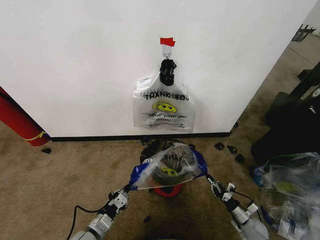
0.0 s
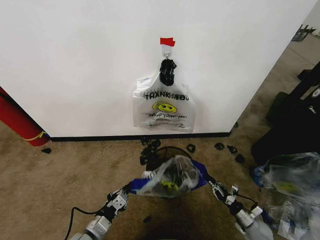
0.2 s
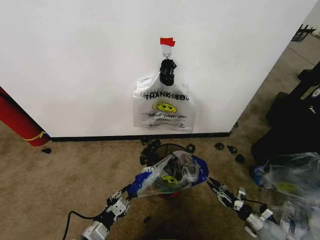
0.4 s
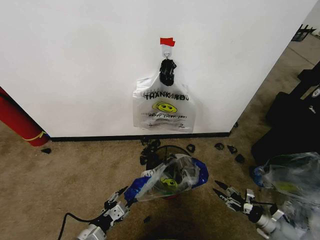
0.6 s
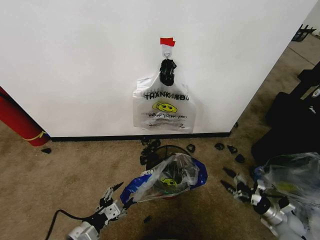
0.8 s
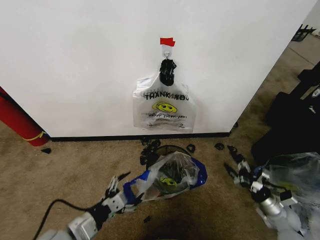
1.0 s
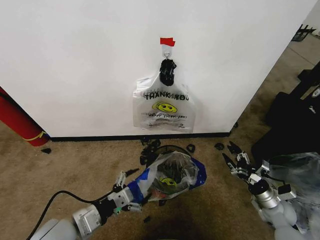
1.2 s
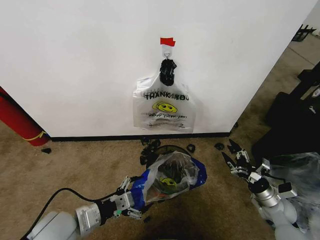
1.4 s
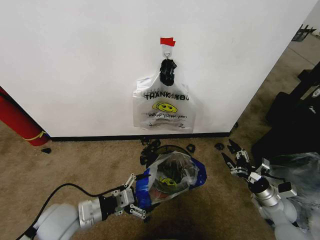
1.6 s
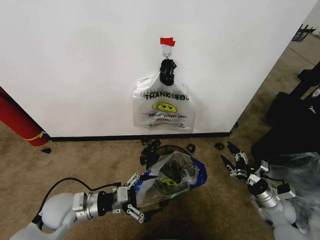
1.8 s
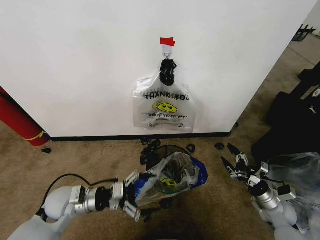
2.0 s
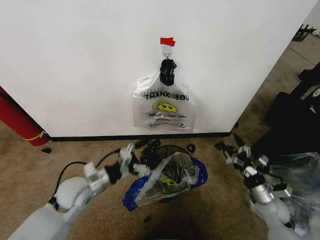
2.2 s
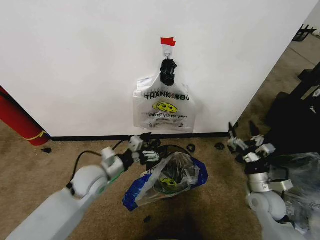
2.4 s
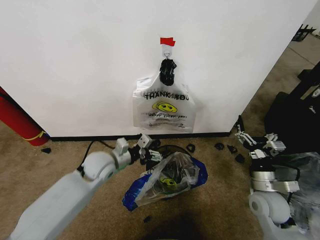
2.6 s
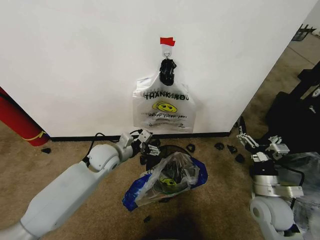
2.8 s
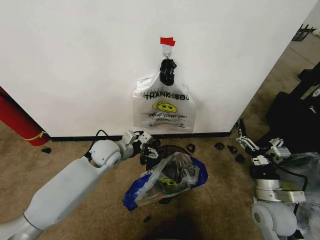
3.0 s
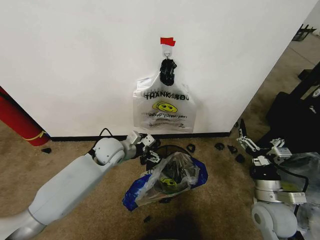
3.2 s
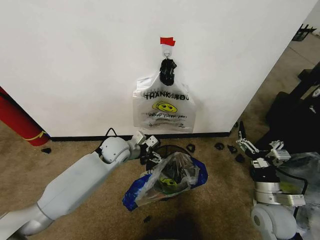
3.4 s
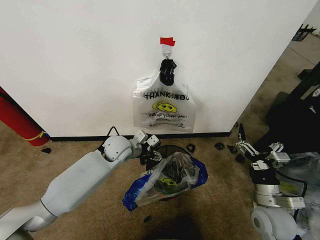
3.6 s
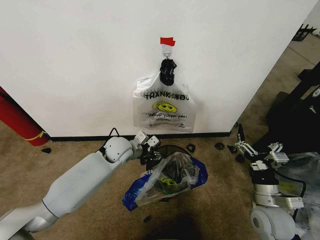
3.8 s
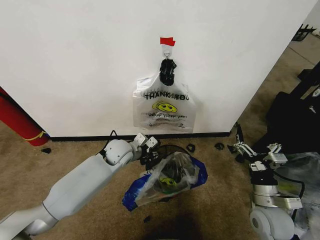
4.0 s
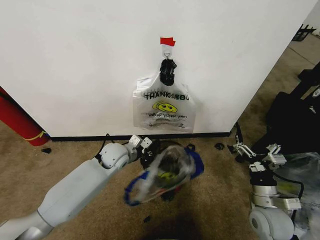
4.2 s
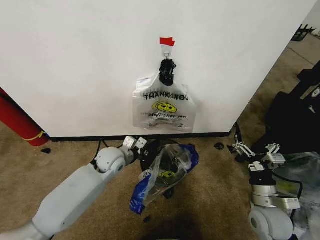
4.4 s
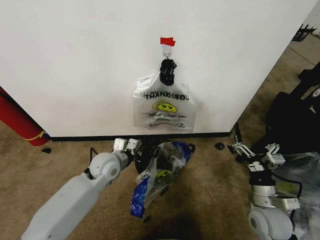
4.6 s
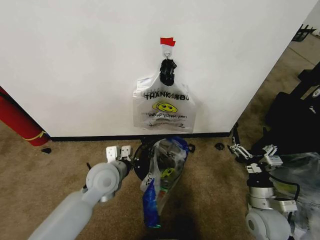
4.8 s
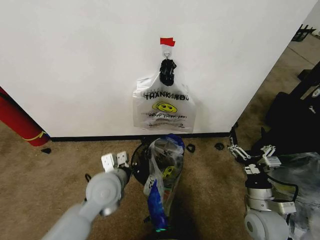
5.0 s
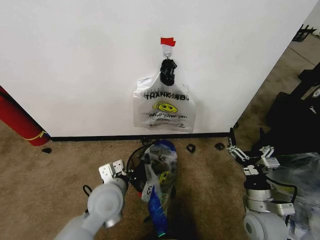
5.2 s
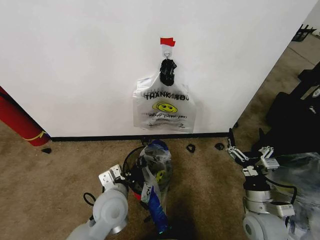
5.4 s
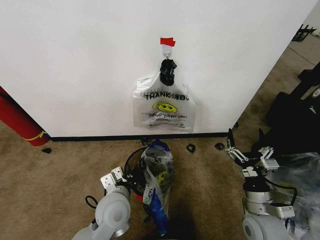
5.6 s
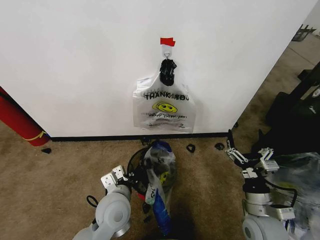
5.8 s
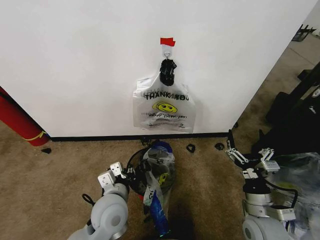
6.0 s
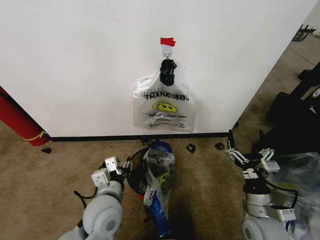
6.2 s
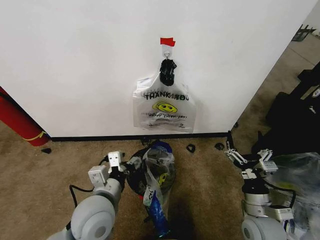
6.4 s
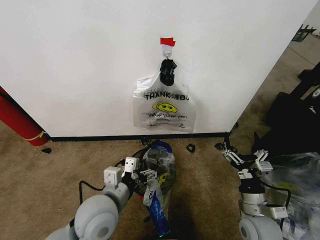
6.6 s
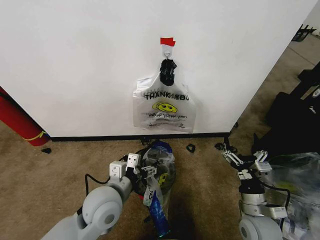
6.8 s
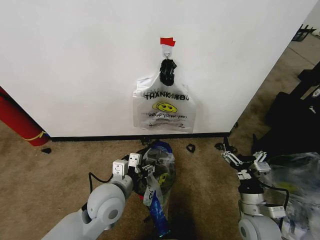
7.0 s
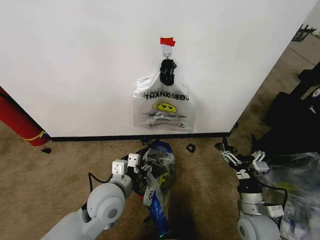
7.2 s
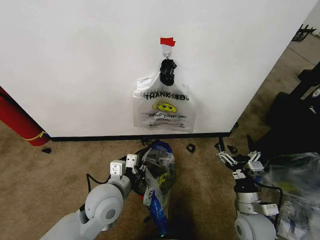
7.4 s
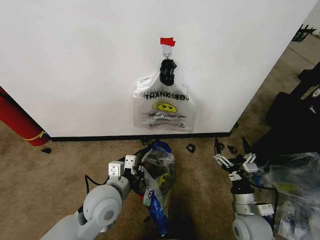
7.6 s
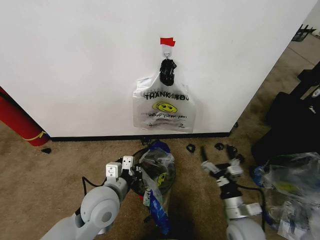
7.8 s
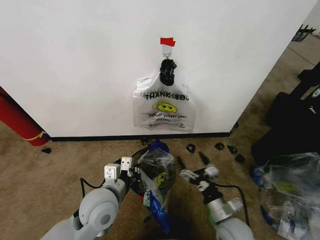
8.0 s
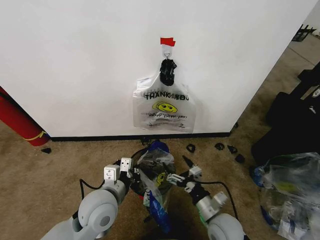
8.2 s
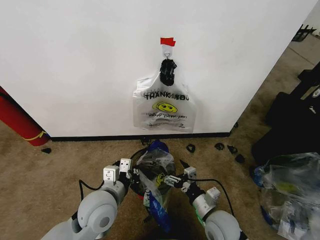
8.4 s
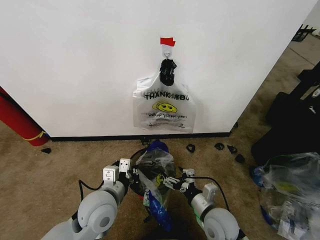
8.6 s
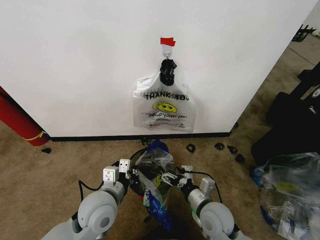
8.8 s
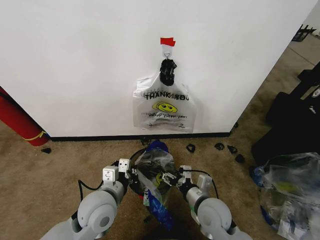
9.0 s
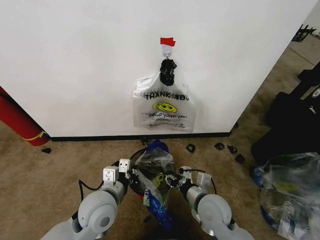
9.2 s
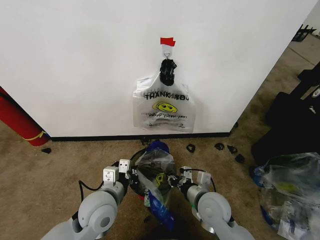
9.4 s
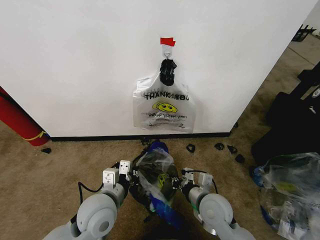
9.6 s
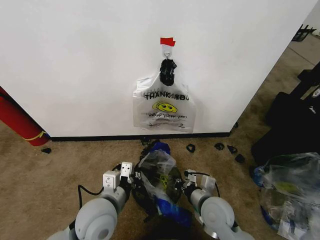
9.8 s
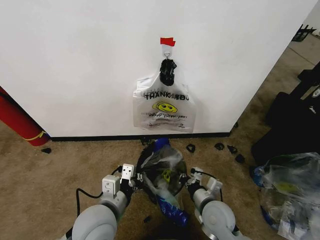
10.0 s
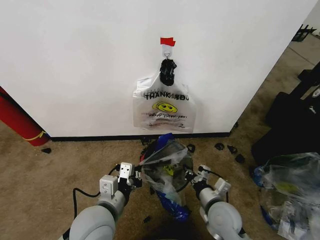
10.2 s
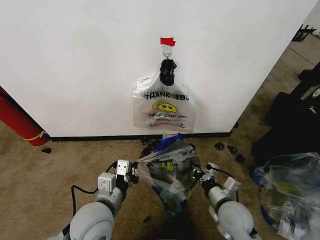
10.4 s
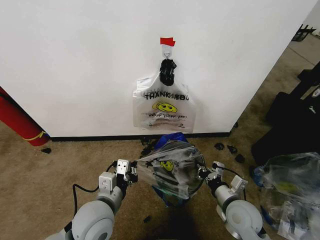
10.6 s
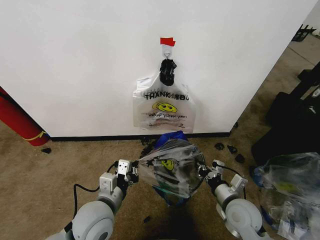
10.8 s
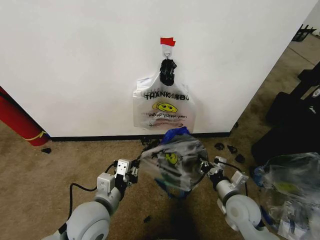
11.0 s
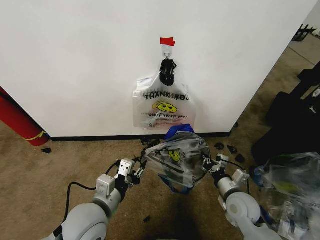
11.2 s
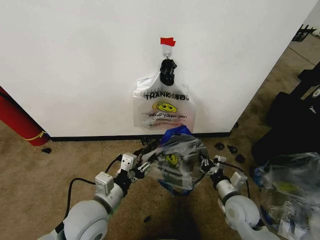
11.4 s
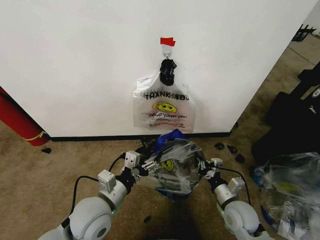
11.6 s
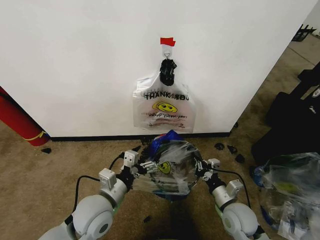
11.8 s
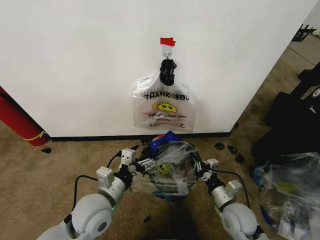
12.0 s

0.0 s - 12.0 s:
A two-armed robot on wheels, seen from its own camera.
Task of the whole recording: Pick up the garbage bag from the wall and place it over the trash bin.
0.0 s - 1.6 s: Both grippers move upward, approximately 15 cm. The left gripper opens; the right gripper opens up.
1.6 s - 3.0 s: The right gripper moves to the left, upward and backward, about 15 cm, while the left gripper goes some 20 cm forward and to the right.
3.0 s - 4.4 s: The left gripper closes its fingers.
4.4 s - 6.0 s: The left gripper travels backward by approximately 15 cm.
6.0 s - 7.6 s: The left gripper opens, then closes once more.
7.6 s - 9.0 s: The right gripper shifts approximately 10 cm to the left.
9.0 s - 10.4 s: The right gripper moves to the right, about 5 cm, and closes.
10.4 s - 12.0 s: The left gripper opens.

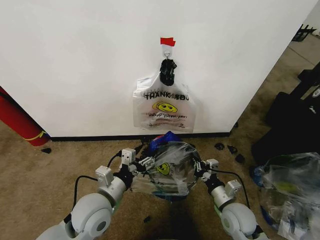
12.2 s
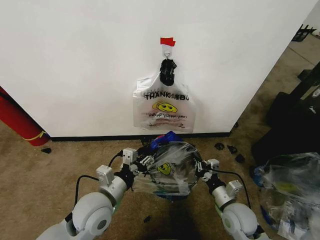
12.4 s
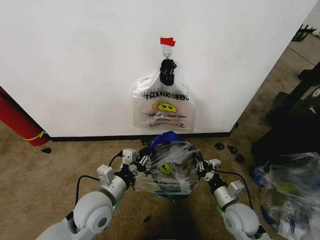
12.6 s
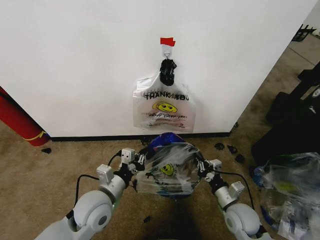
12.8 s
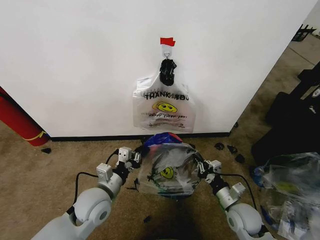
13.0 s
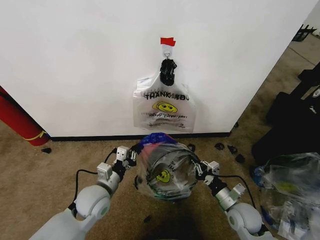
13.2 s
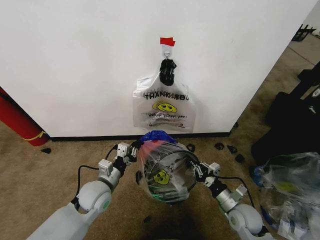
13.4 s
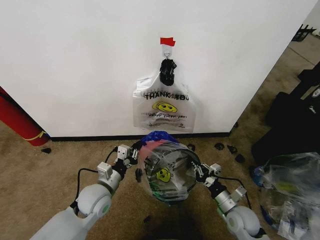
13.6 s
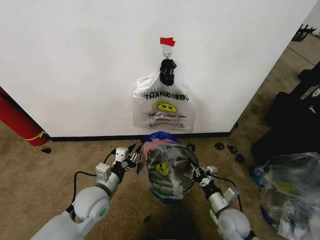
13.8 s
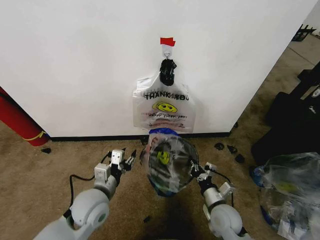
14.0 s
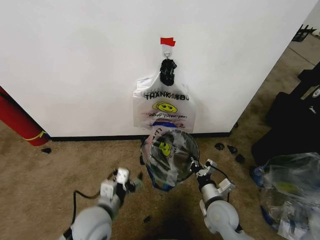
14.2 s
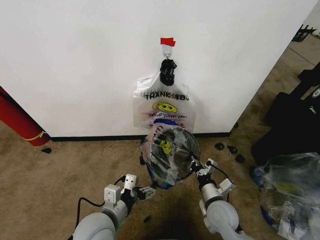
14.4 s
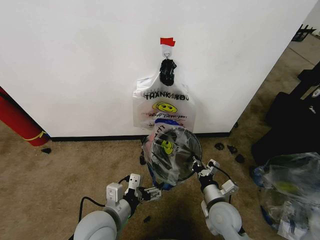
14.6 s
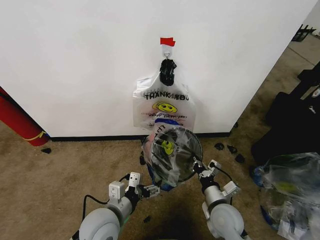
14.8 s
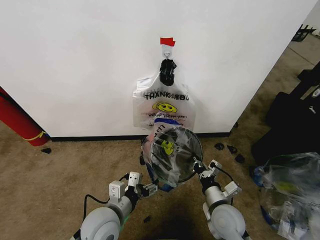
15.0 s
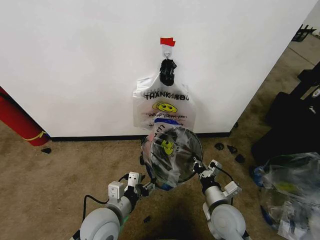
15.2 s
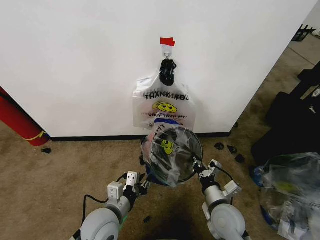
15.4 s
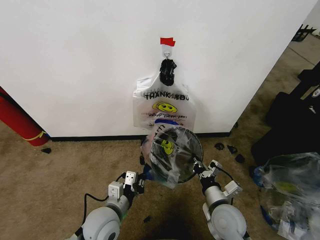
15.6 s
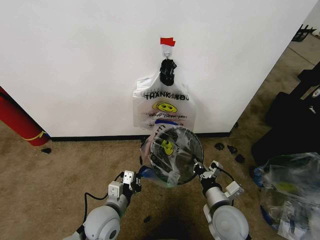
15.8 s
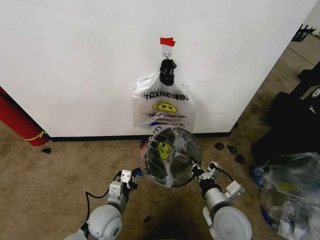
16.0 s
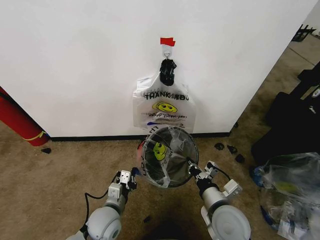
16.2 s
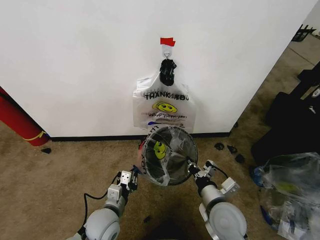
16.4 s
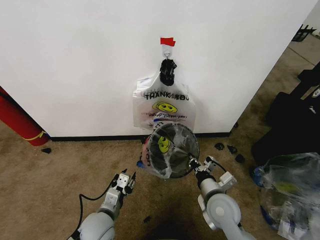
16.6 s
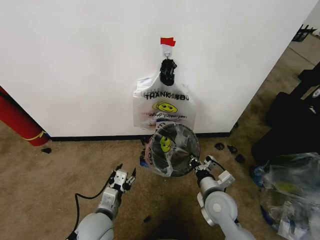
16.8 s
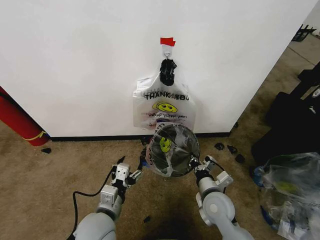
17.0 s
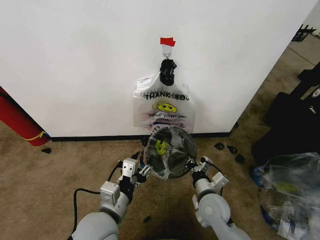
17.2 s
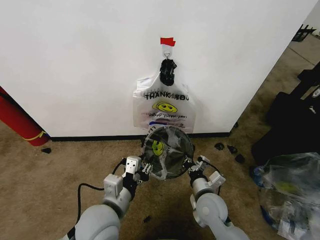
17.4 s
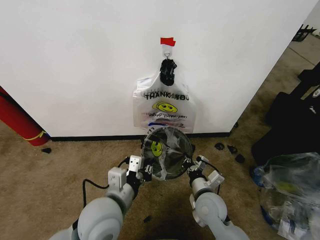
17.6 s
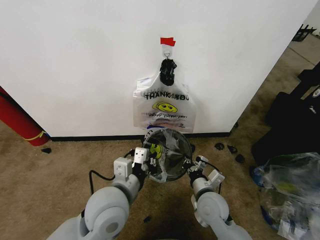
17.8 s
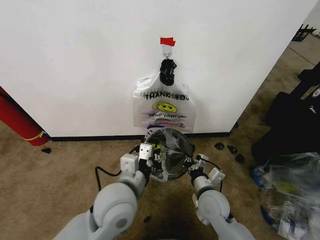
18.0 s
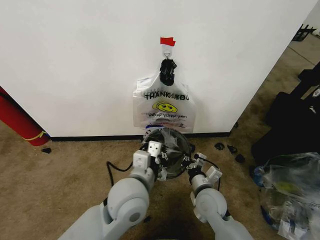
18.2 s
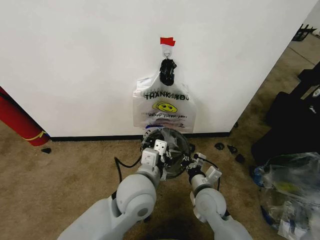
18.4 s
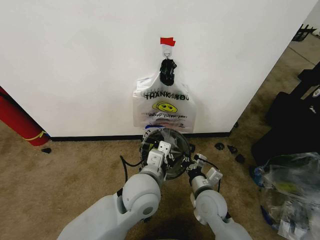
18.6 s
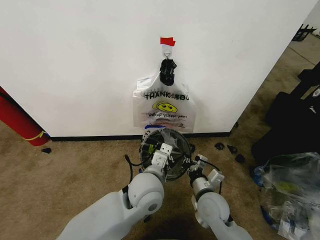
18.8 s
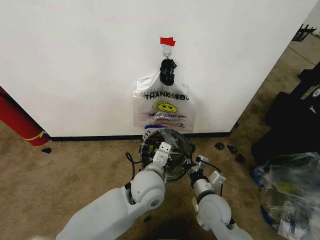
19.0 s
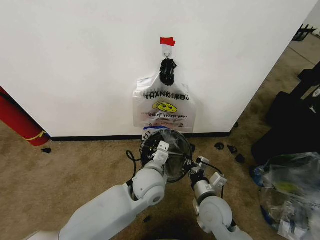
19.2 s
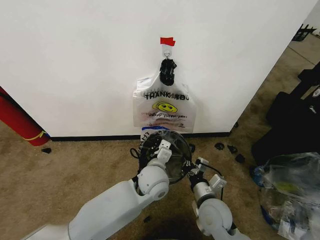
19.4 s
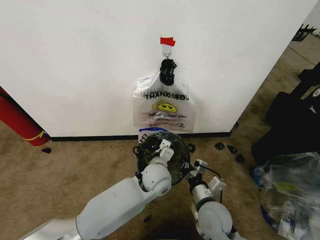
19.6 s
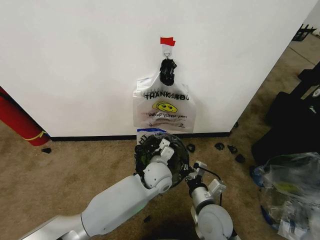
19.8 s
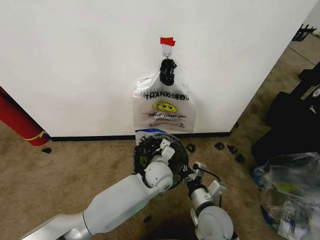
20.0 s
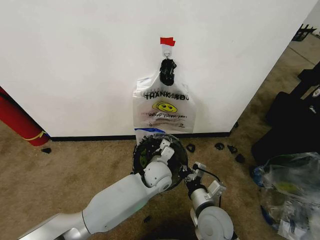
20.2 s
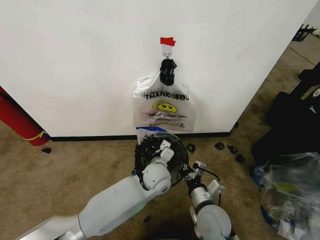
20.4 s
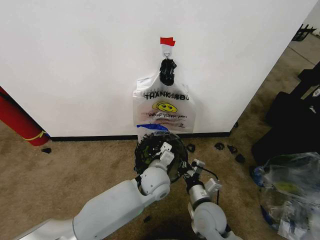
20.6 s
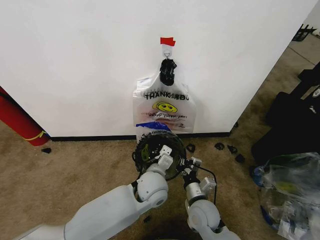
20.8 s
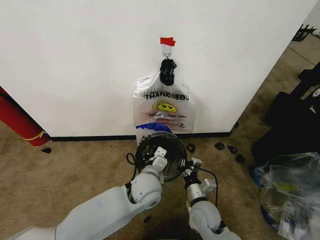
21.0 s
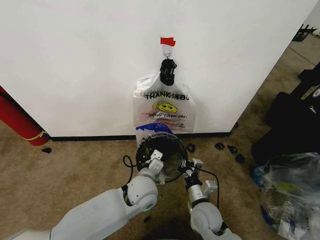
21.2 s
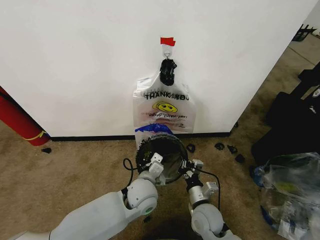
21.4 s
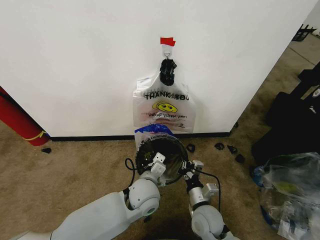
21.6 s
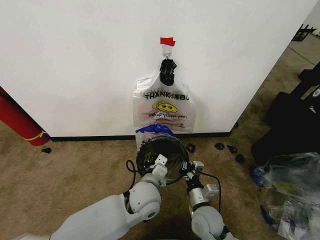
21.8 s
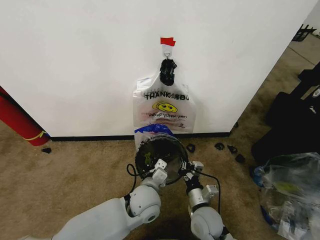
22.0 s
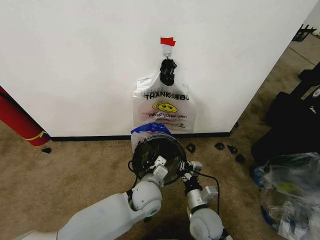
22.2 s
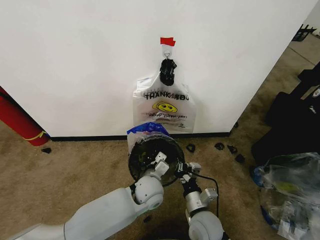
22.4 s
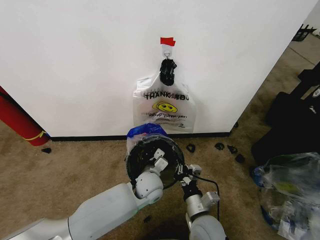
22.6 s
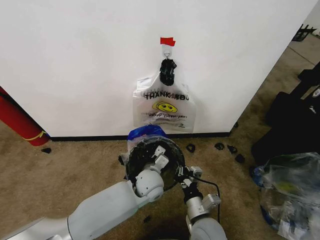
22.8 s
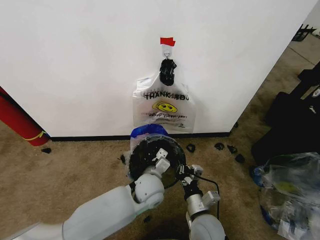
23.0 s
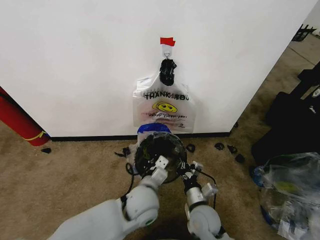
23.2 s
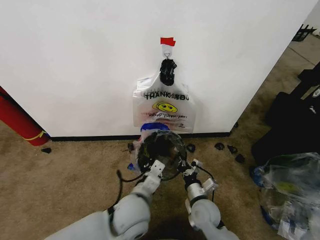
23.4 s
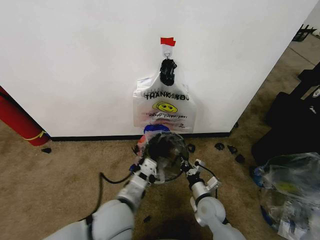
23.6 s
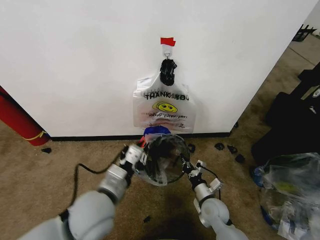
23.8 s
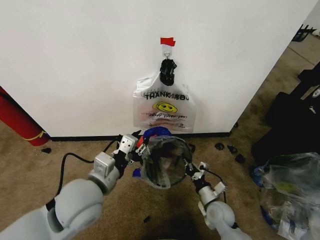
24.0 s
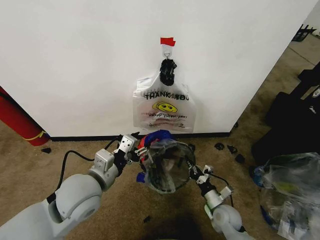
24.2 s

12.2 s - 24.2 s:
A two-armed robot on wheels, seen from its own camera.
Task of the whole recording: Pick up the garbage bag from the wall and place it over the trash bin.
12.2 s - 13.8 s: The grippers both shift downward by some 5 cm. The left gripper closes its fingers.
13.8 s - 15.2 s: The right gripper heads upward, covering approximately 5 cm, while the left gripper moves backward and to the right, some 10 cm, and opens, then closes once more.
15.2 s - 16.6 s: The left gripper shifts about 10 cm downward, and closes and opens again.
16.6 s - 18.2 s: The left gripper shifts approximately 20 cm upward and to the right, and closes its fingers.
18.2 s - 19.8 s: The left gripper shifts approximately 20 cm forward, downward and to the right. The right gripper is displaced backward by about 5 cm.
19.8 s - 21.2 s: The right gripper heads downward, covering some 5 cm. The left gripper goes approximately 5 cm backward.
21.2 s - 22.6 s: The left gripper shifts by some 5 cm. Meanwhile the right gripper ends up about 5 cm from where it was.
22.6 s - 24.2 s: The left gripper shifts about 25 cm to the left, upward and backward, and opens up; the right gripper is displaced to the right, downward and forward by about 15 cm.
